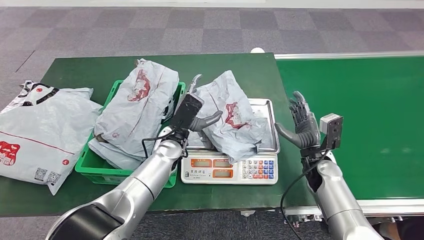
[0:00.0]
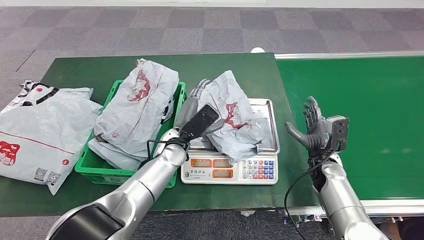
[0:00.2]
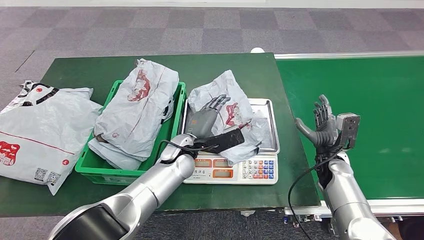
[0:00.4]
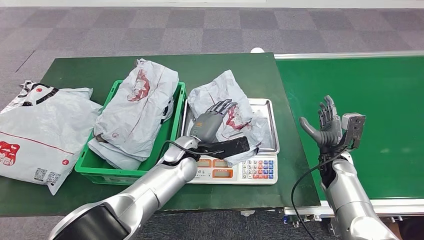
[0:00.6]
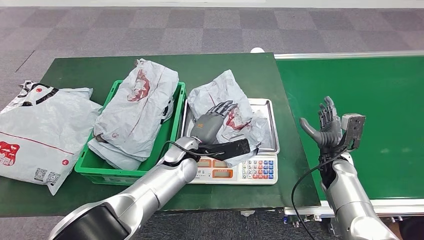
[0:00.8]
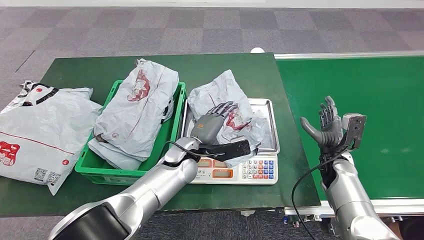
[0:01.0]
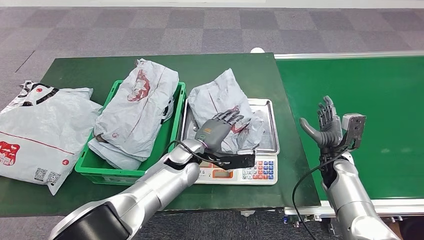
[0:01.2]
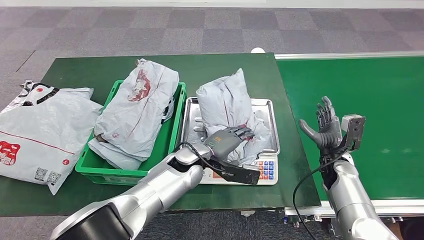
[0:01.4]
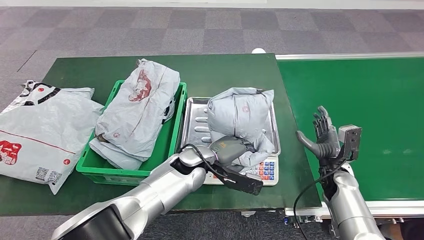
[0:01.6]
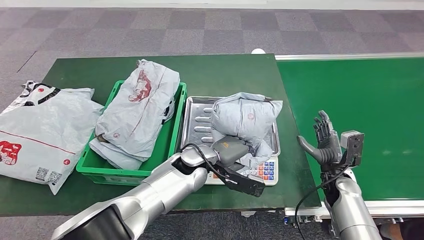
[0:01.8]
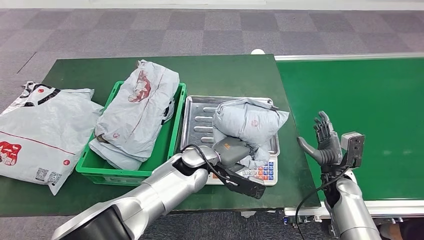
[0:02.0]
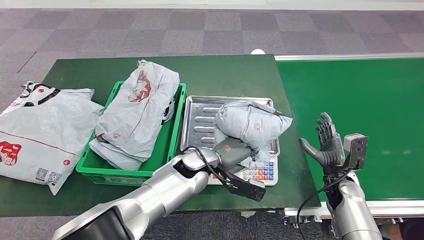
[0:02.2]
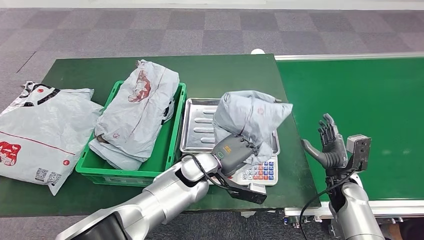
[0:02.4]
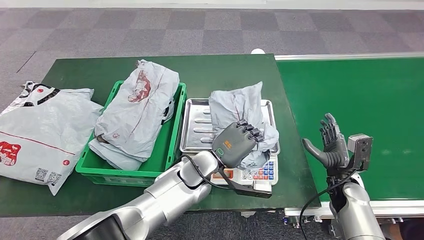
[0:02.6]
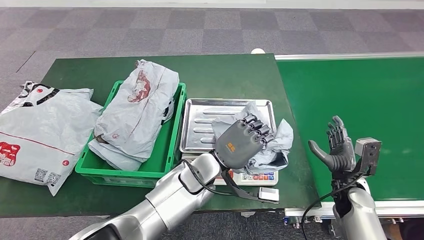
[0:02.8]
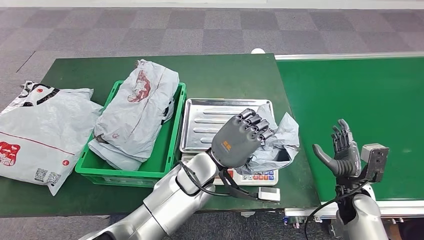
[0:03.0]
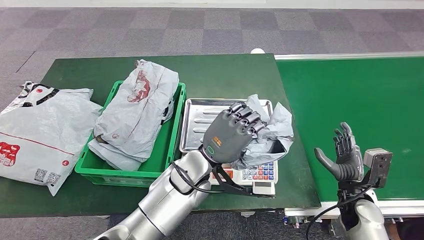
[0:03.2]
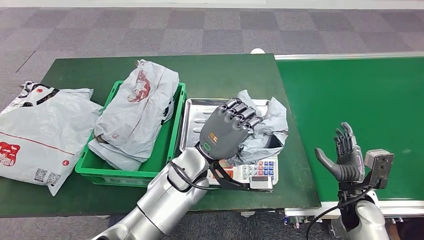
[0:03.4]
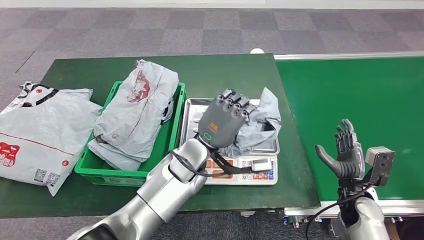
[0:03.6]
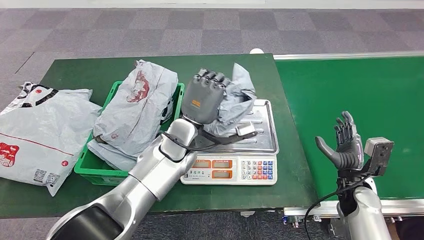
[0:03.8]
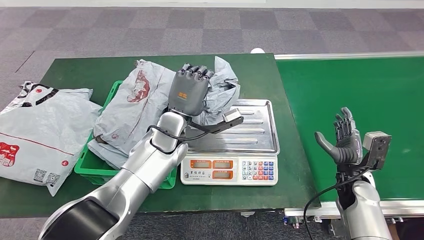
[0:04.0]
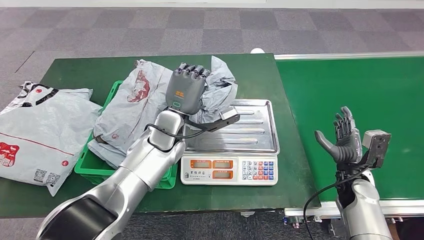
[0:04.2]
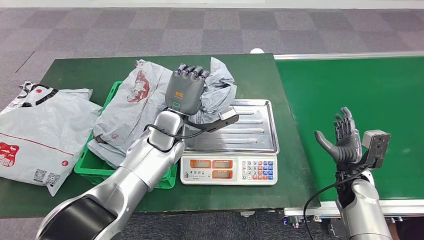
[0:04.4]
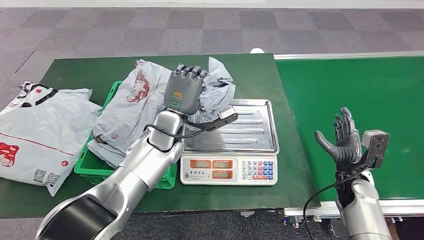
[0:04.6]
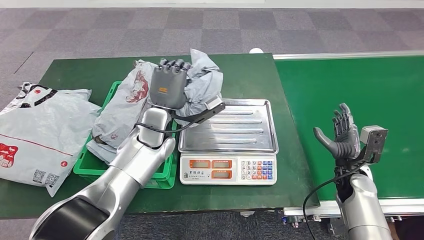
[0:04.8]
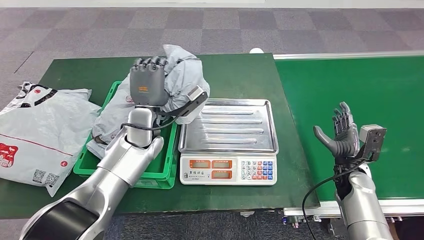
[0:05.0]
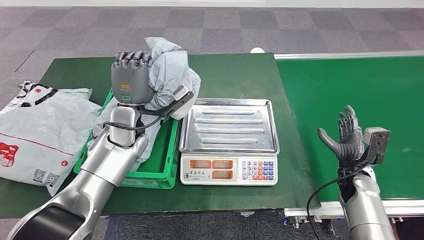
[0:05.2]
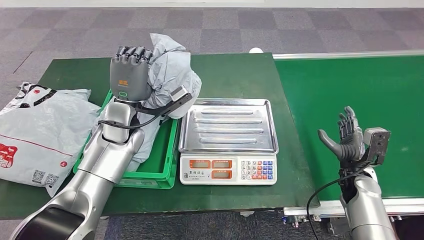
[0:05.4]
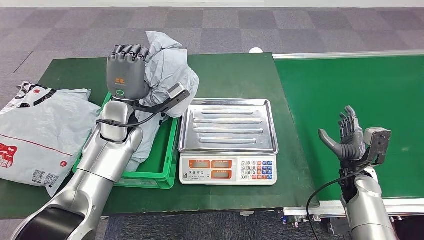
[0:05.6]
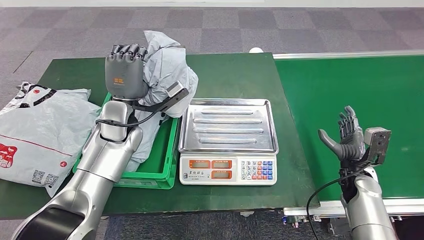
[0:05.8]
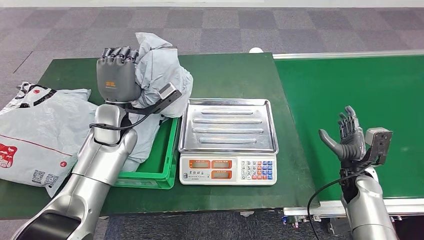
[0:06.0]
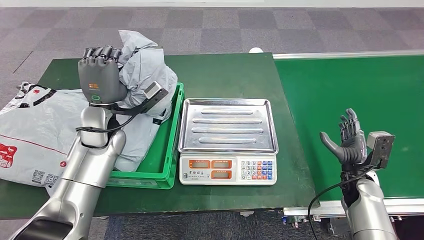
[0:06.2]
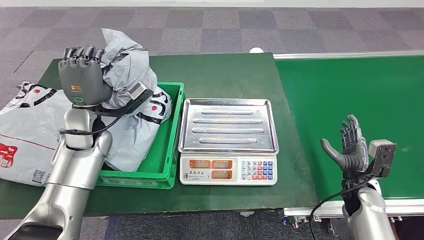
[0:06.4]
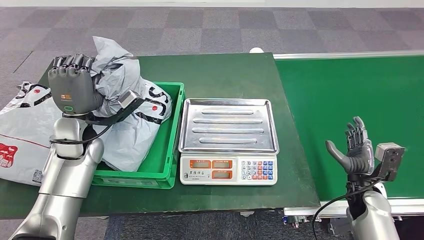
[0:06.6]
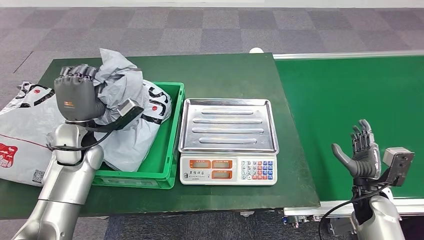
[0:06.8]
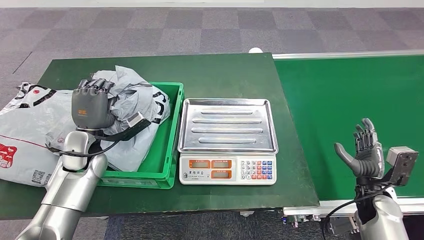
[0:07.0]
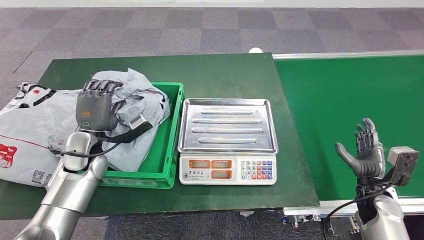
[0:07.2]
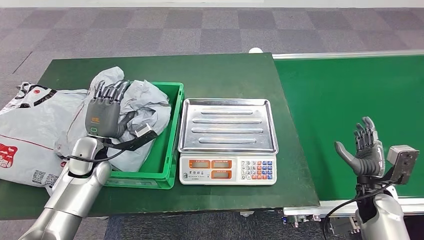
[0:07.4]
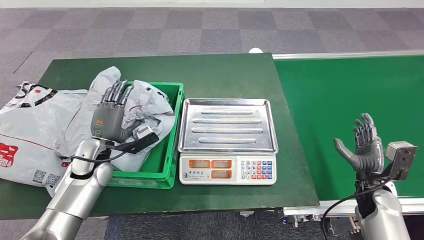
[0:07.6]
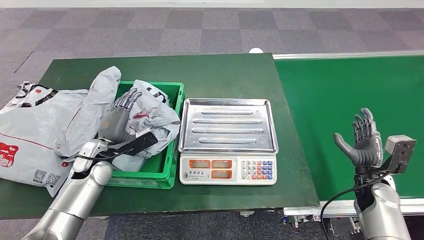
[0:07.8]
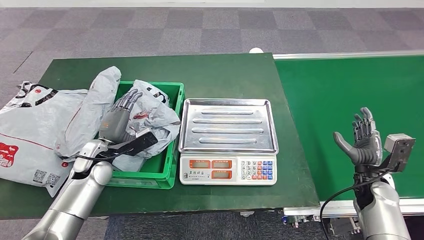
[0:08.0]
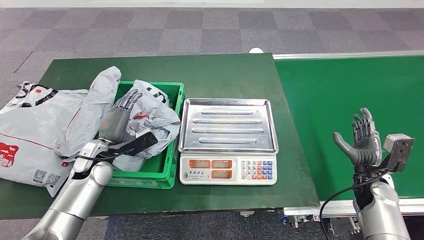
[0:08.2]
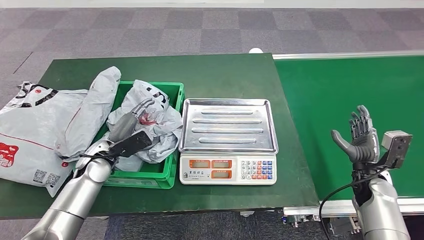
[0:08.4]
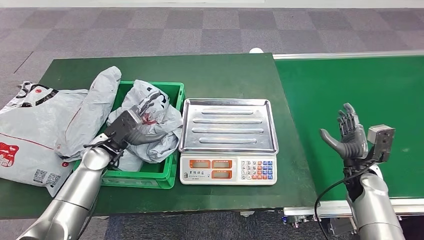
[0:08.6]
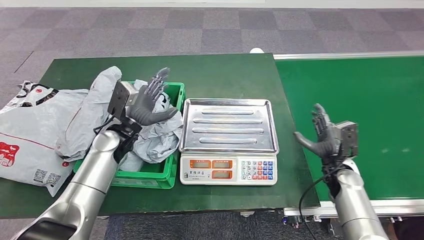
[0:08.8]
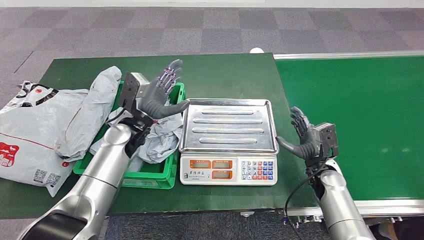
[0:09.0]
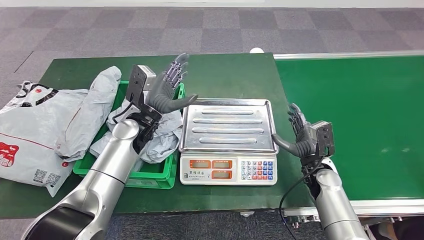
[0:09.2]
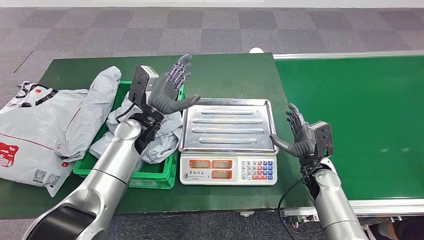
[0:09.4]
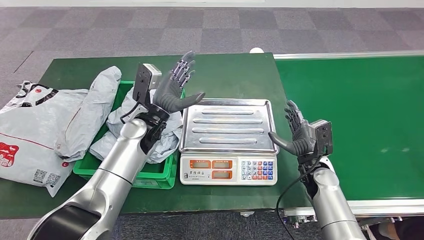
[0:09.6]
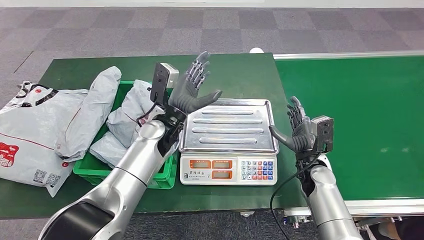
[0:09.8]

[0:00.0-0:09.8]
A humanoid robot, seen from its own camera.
Step, 0:00.8 to 0:04.4: Pick up the parcel from the inbound machine.
Step, 0:04.6 to 0:09.8: Place the parcel into the delivery box.
0:00.0 to 0:01.4: The left hand changes place by some 5 cm. Meanwhile the right hand heads to the right, covering some 5 cm.
0:07.0 to 0:08.4: The left hand shifts by some 5 cm.

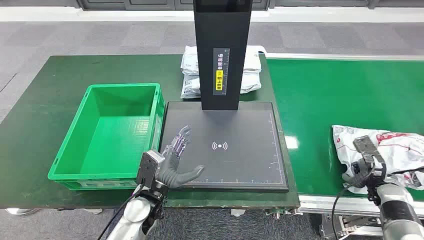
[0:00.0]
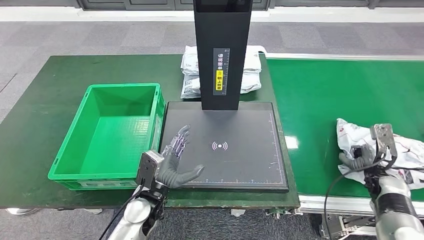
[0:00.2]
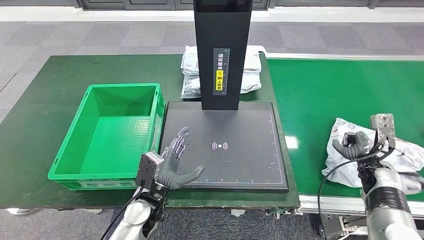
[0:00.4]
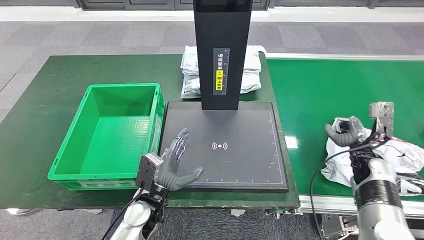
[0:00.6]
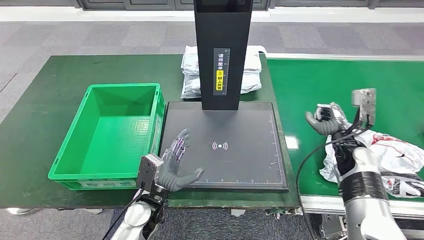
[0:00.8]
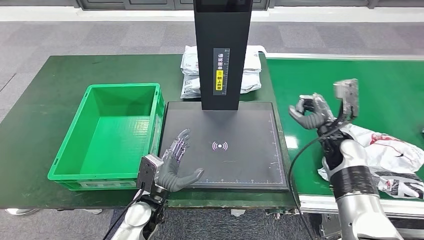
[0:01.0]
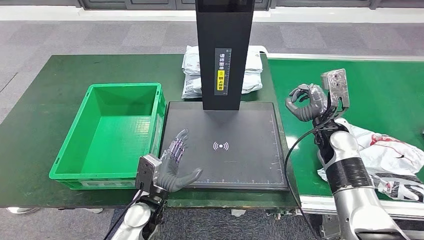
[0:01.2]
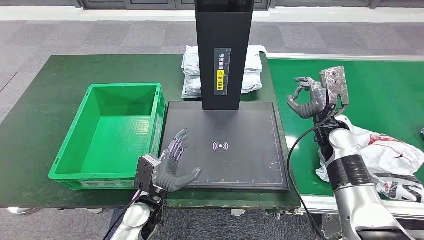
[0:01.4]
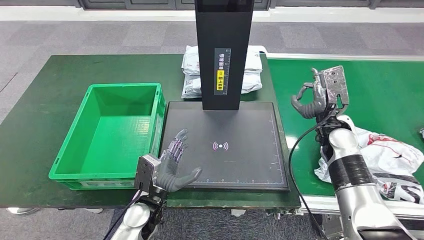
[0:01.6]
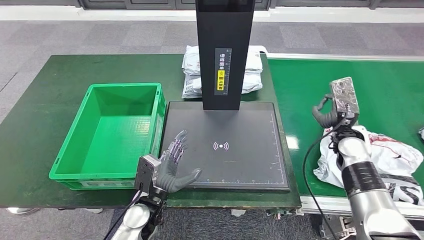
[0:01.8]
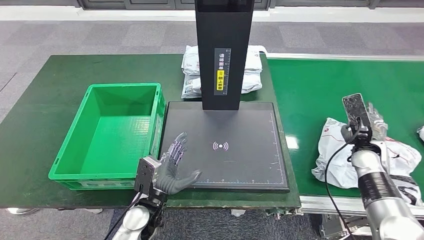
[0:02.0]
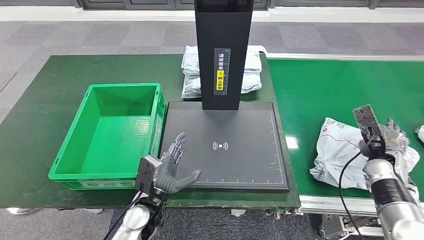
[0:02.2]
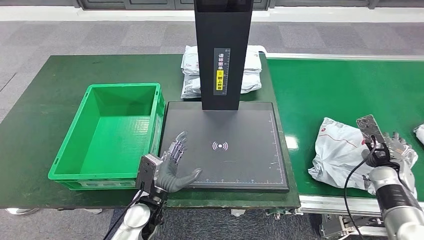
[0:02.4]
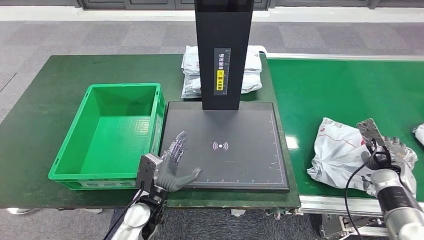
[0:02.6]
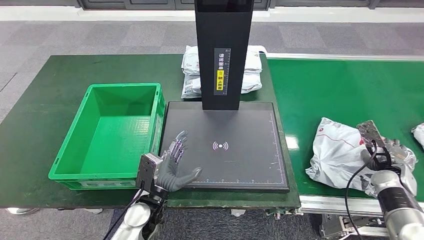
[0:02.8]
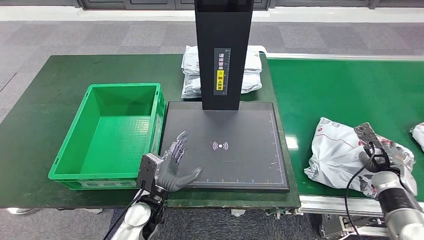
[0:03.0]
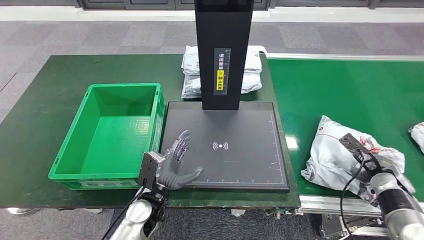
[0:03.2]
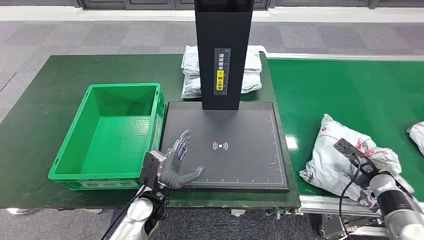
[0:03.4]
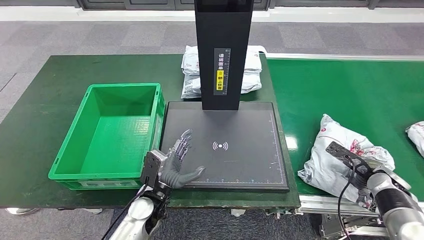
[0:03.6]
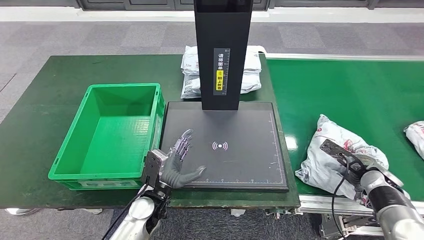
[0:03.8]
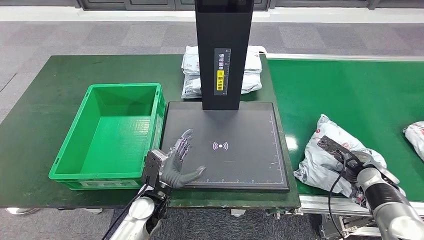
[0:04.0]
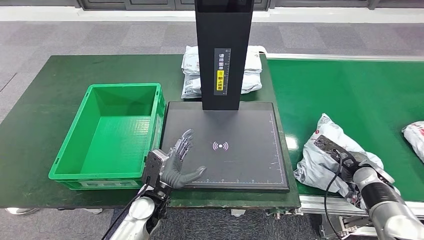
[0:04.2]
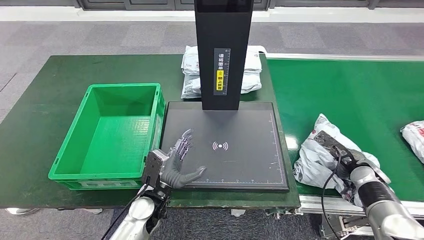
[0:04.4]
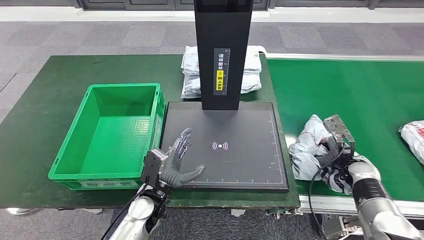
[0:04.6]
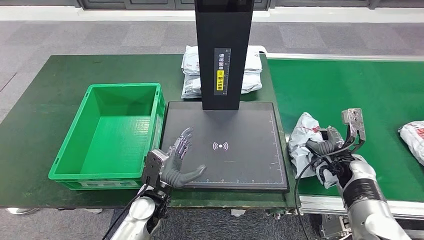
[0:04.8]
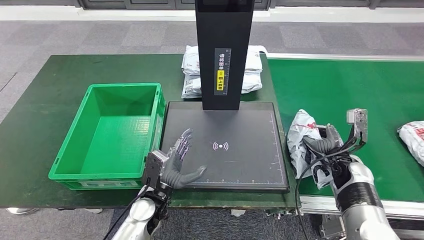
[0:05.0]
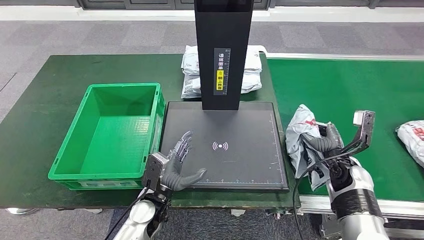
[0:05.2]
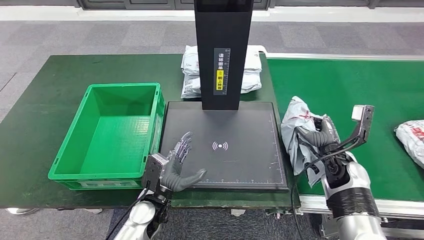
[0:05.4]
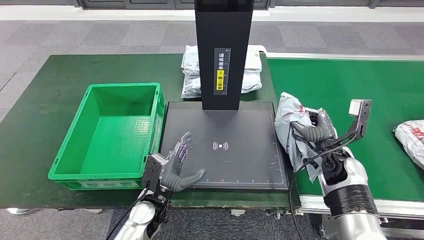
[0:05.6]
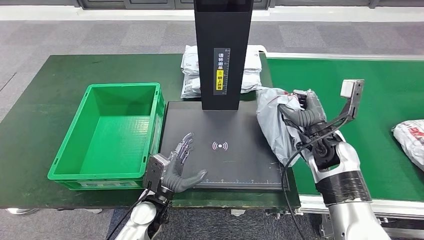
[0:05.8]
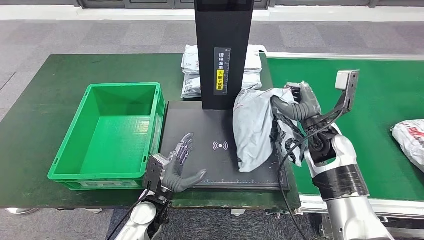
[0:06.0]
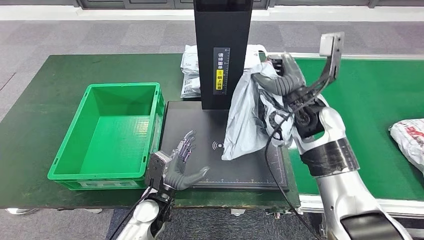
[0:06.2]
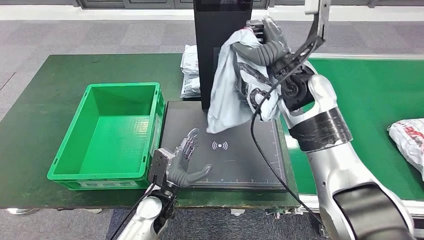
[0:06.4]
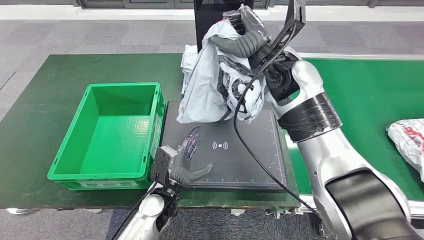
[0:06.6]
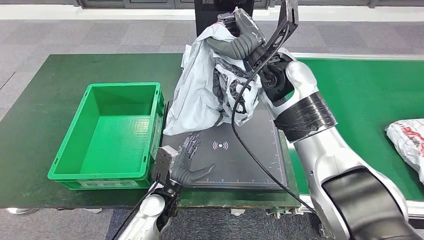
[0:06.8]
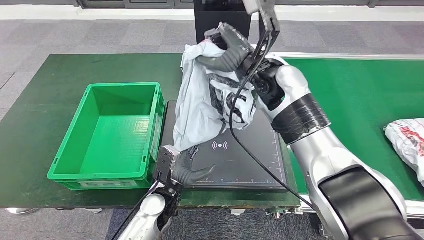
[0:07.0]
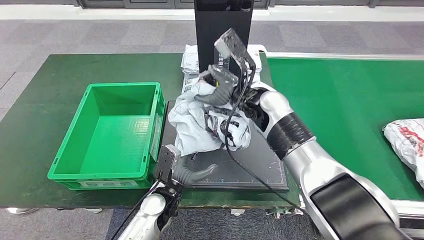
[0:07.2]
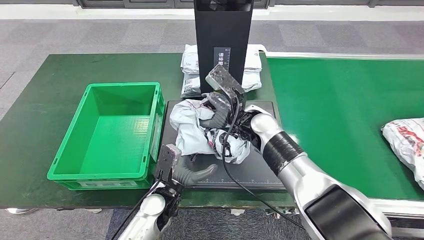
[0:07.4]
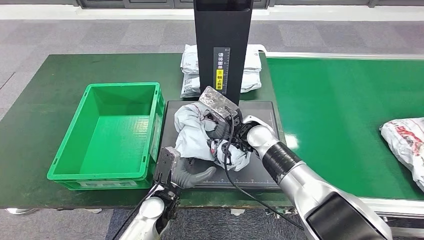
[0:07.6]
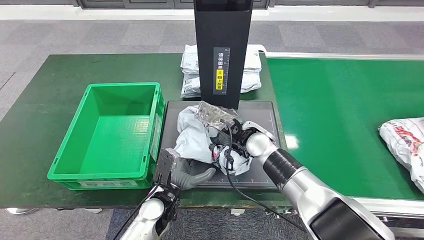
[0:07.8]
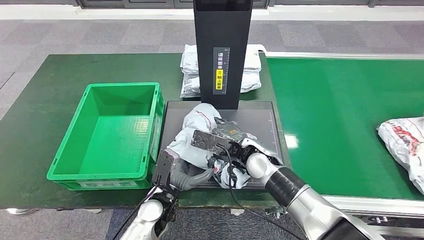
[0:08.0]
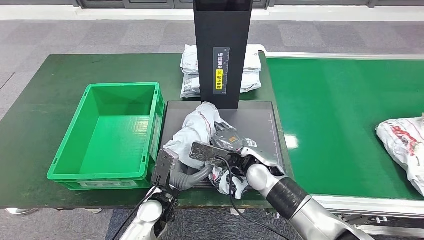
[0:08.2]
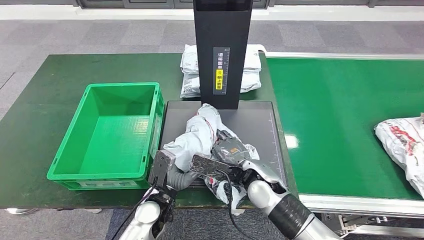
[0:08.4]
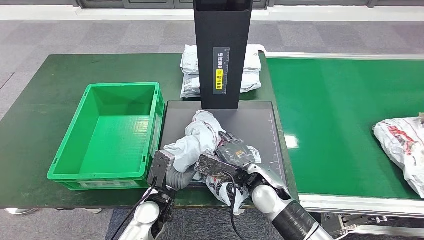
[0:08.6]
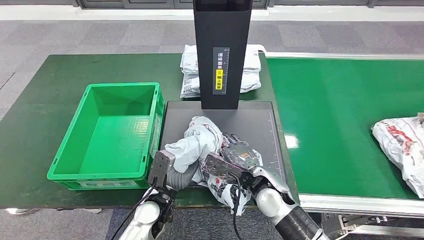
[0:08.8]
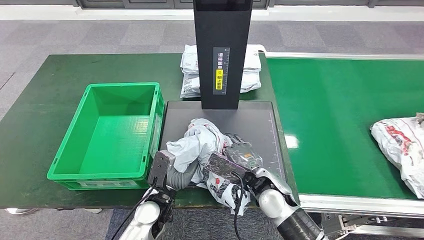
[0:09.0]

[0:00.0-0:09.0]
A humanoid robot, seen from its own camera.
Step, 0:00.0 to 0:06.2: Take the parcel off the conveyor belt.
0:01.6 to 0:03.0: The right hand is displaced to the right, downward and backward by about 20 cm.
0:03.0 to 0:04.4: The right hand heads to the left, covering approximately 5 cm.
0:07.6 to 0:09.0: The right hand moves backward and downward, roughly 15 cm.
